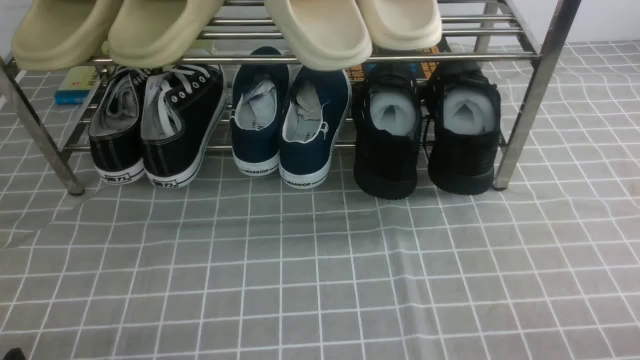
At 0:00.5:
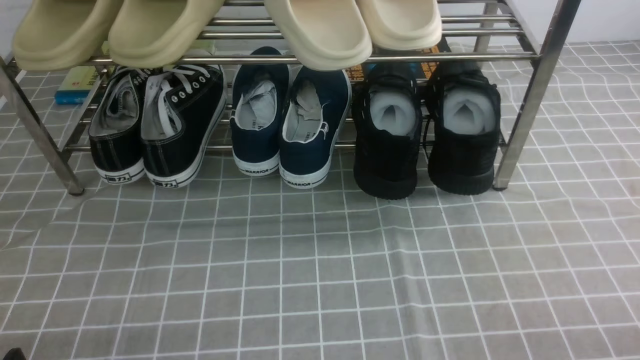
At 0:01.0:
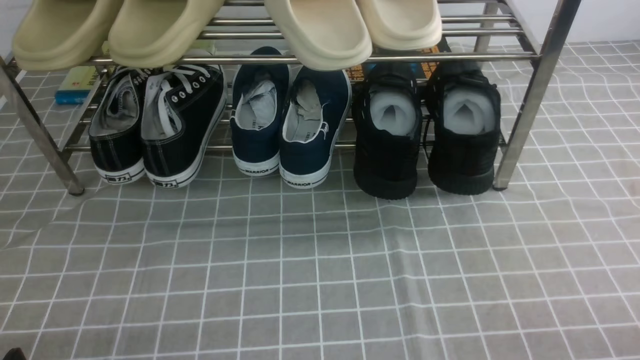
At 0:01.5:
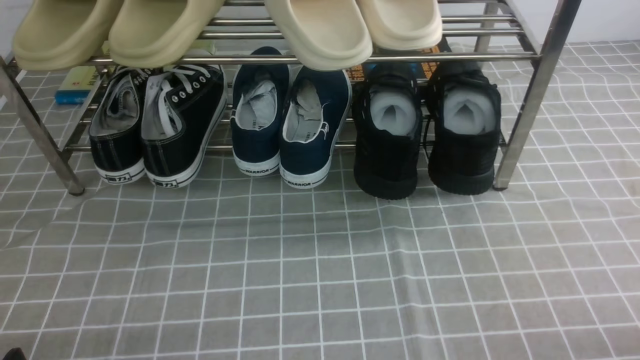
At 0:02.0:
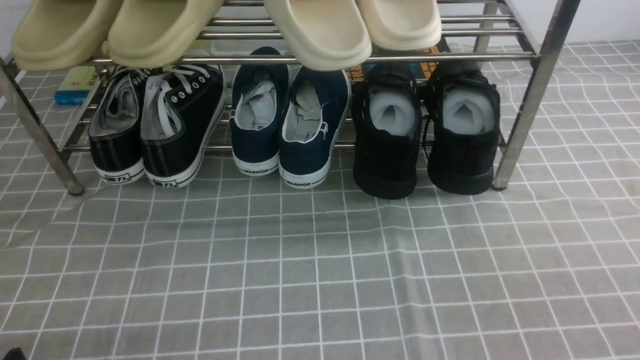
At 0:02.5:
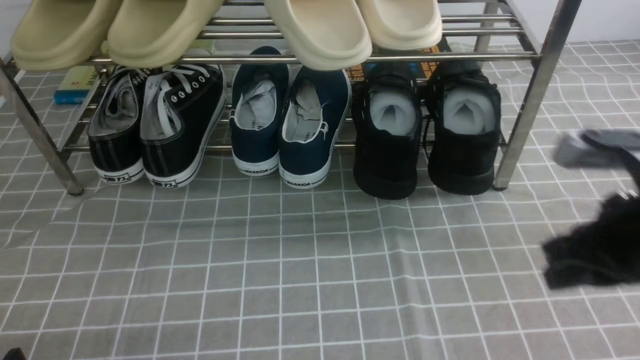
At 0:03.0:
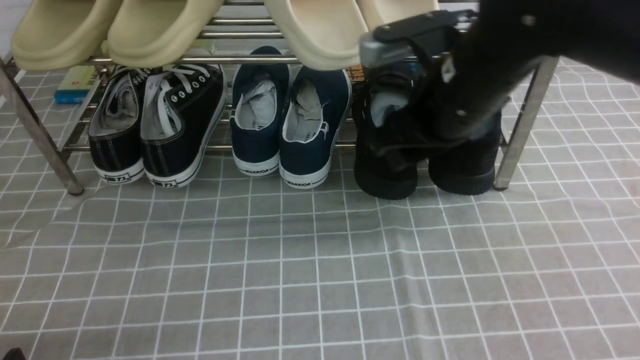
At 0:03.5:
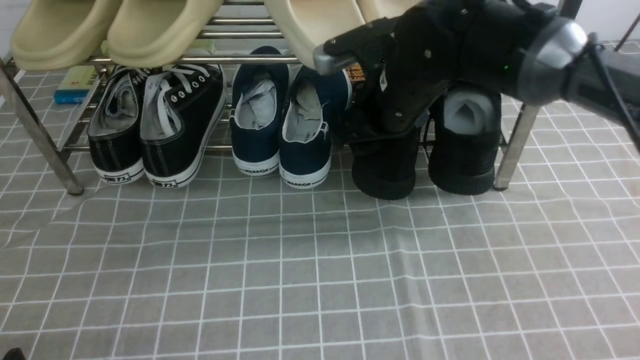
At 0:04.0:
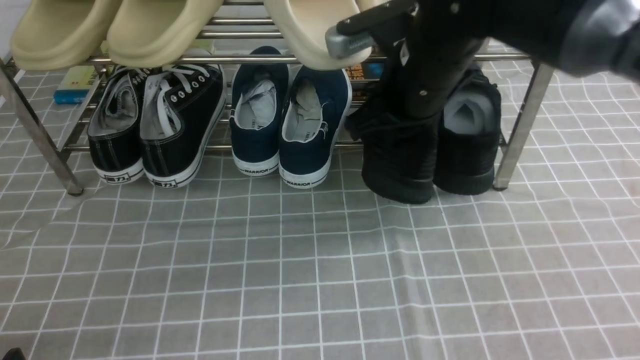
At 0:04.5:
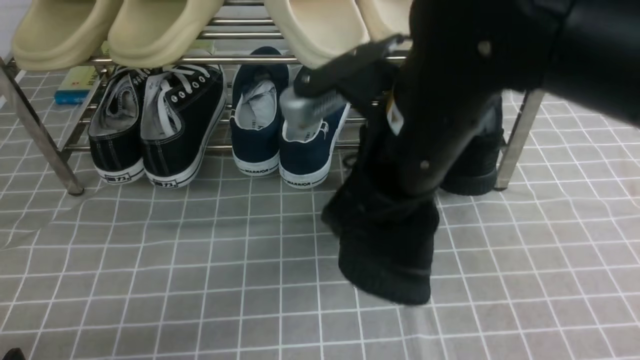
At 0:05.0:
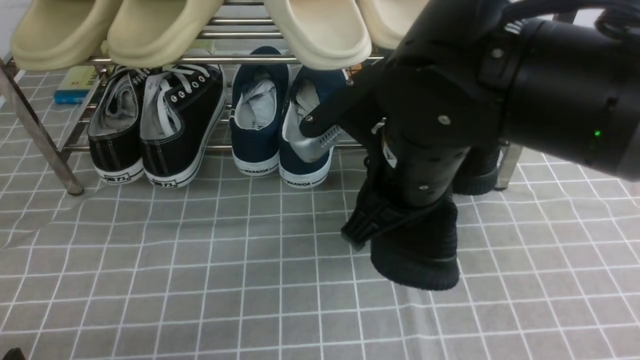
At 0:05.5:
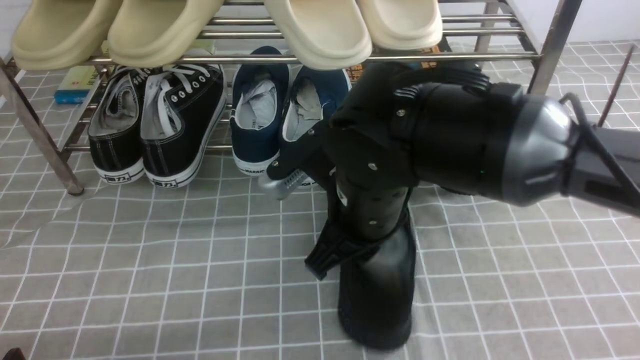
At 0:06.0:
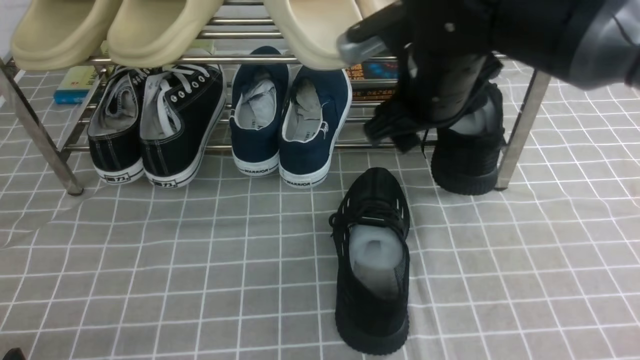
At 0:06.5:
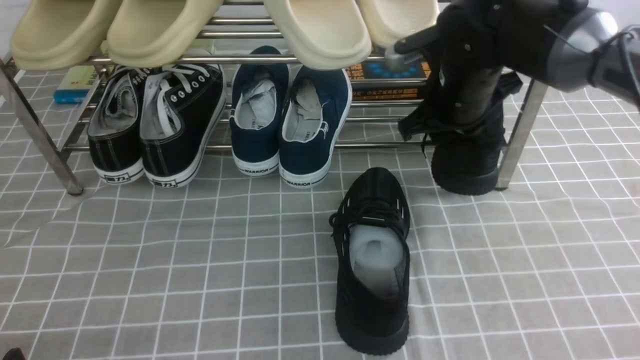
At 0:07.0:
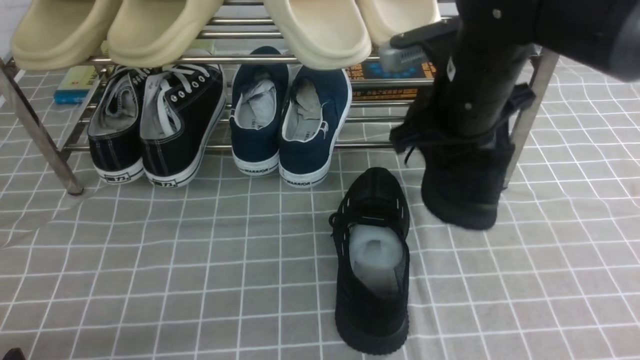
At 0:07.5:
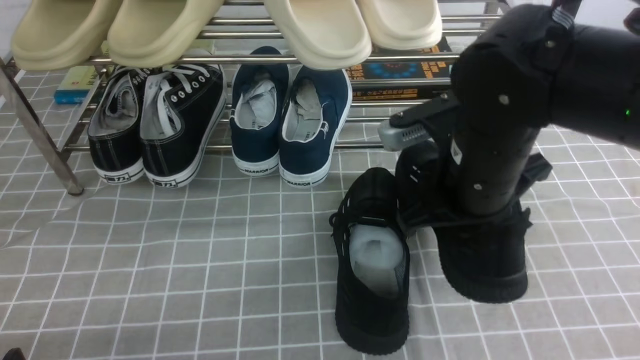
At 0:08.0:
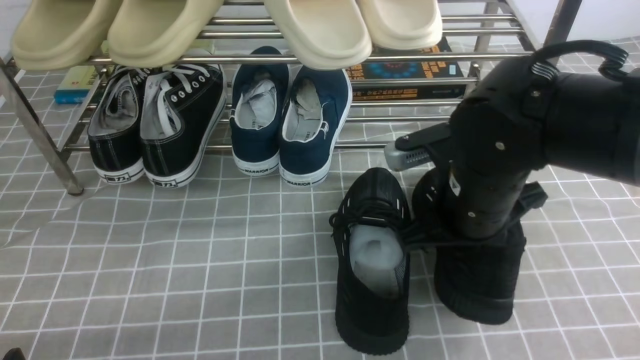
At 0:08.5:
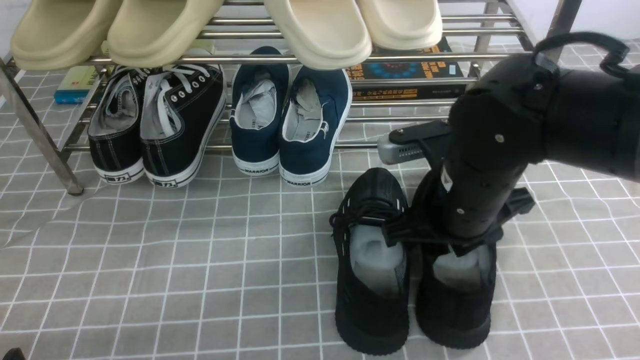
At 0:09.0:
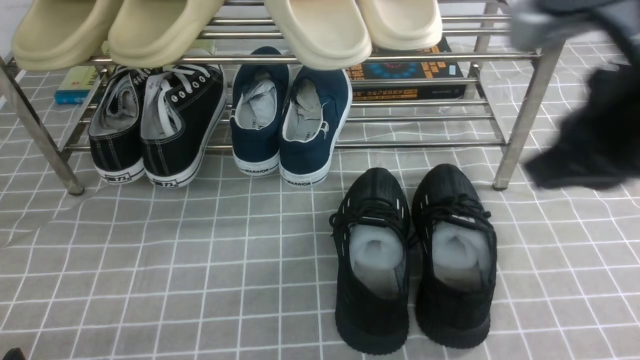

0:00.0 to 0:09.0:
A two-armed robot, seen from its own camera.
Step, 0:00.0 to 0:04.0: use the right arm to clamp a shoe on the right side of the shoe rack.
Step, 0:04.5 to 0:06.0: use the right arm to take out the clamped shoe from the shoe rack and put it down.
Step, 0:07.0 to 0:08.5: use the right arm to take out the clamped shoe from the shoe rack and put it down.
0:02.0 to 0:04.5: The right gripper is displaced to the left, forward and upward by approximately 35 cm, and opens, then closes once more.
0:04.5 to 0:07.0: The right gripper is displaced forward and to the right by approximately 10 cm, and opens, then closes once more.
0:07.0 to 0:09.0: The right gripper is displaced backward and upward by some 15 cm.

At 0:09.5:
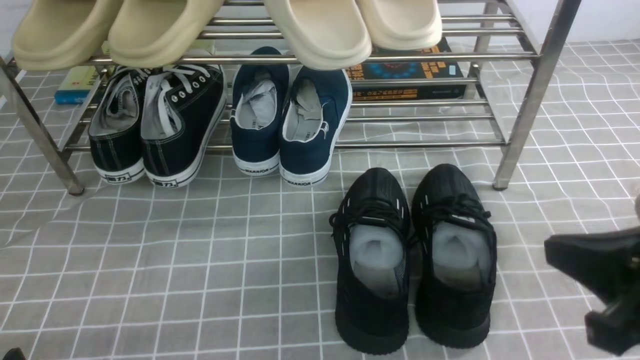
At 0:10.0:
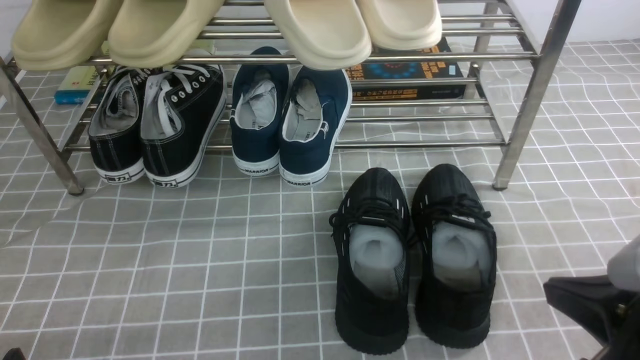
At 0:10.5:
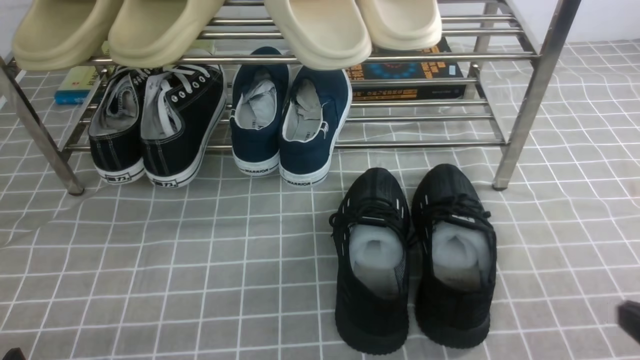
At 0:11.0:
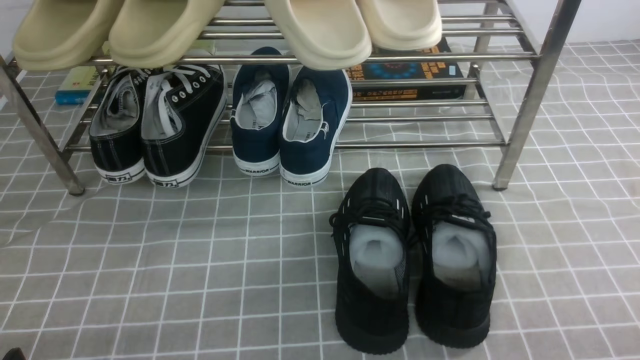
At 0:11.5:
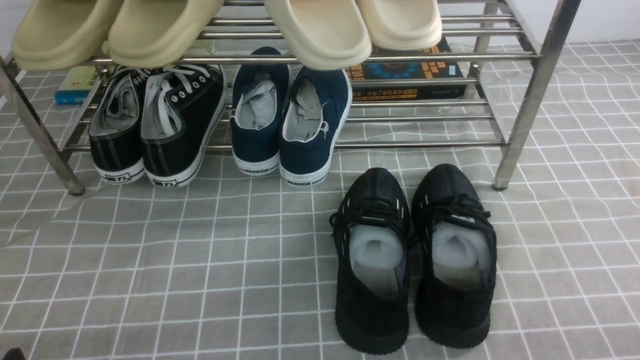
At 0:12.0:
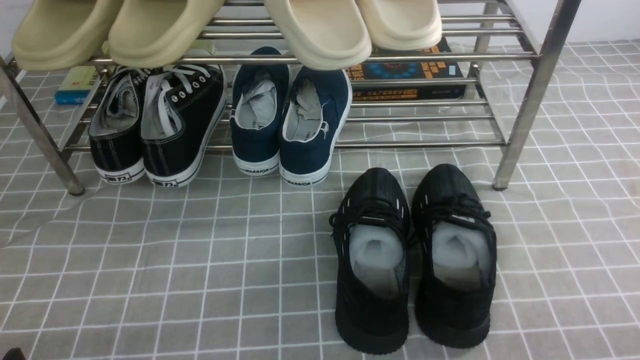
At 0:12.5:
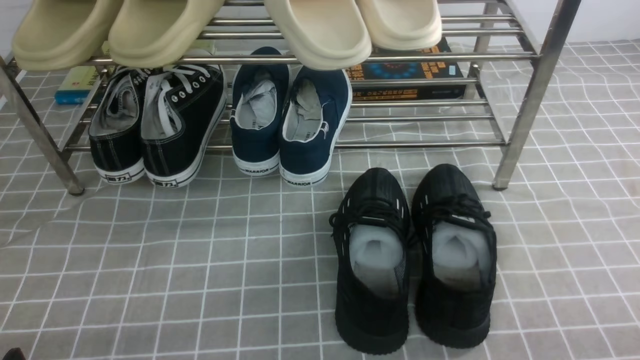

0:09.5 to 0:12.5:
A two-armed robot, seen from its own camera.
0:09.5 to 0:11.0: The right gripper travels downward, to the right and backward by roughly 20 cm.
0:11.0 to 0:12.5: The two grippers keep their place.
